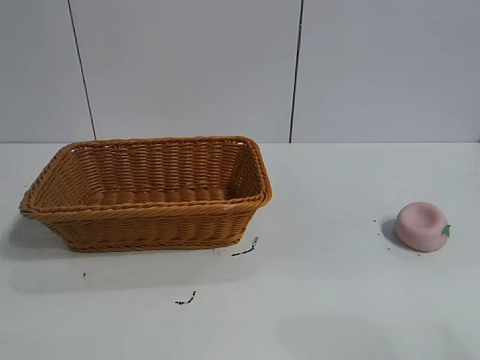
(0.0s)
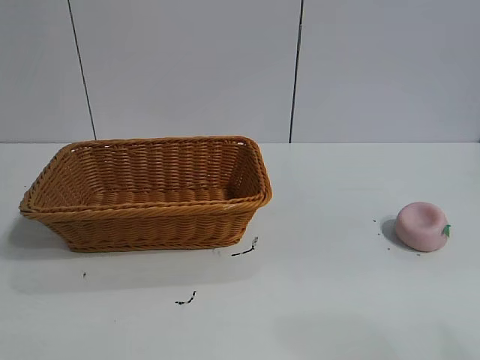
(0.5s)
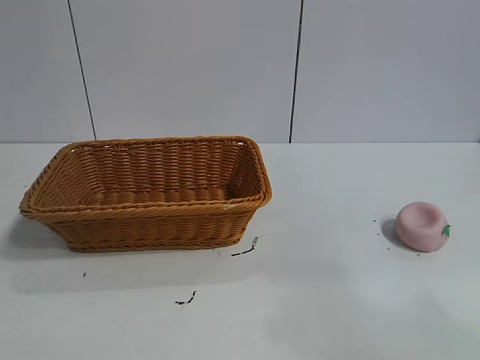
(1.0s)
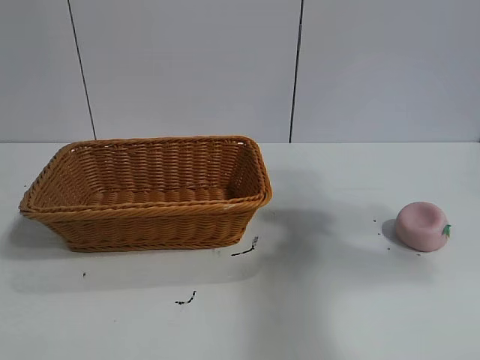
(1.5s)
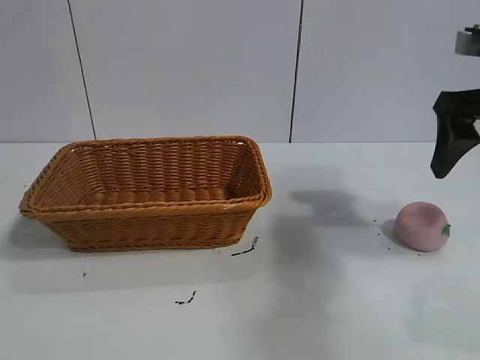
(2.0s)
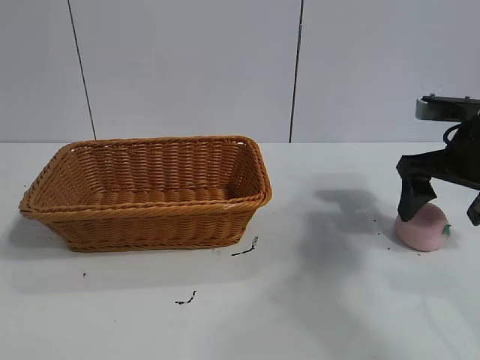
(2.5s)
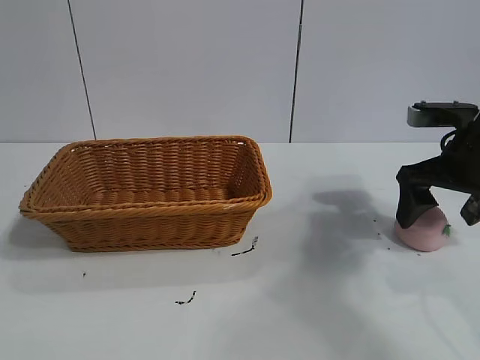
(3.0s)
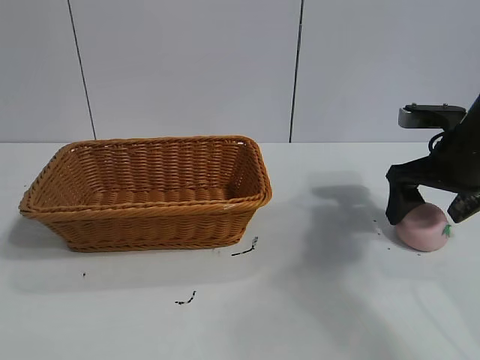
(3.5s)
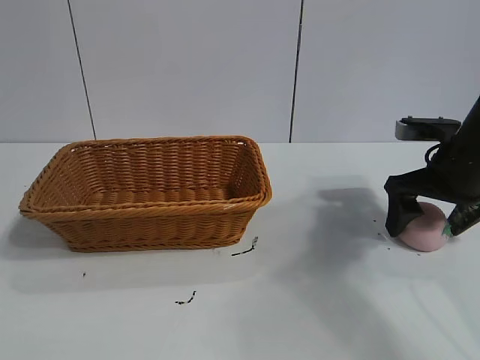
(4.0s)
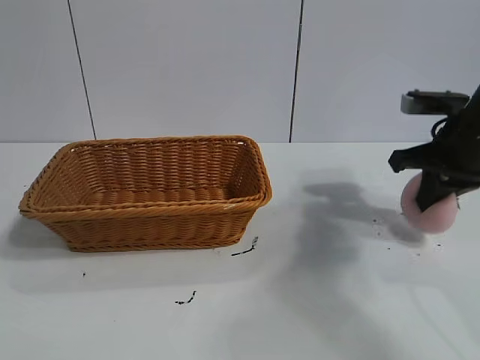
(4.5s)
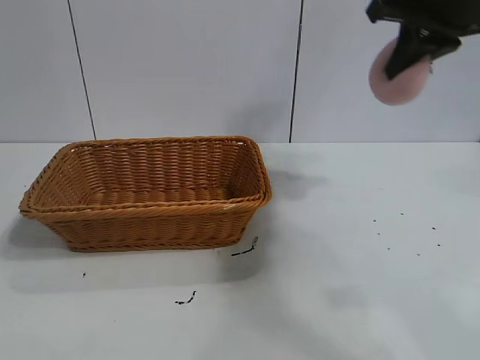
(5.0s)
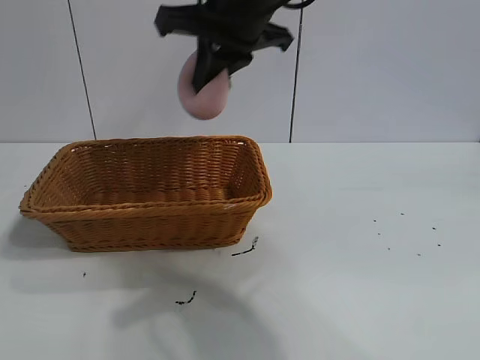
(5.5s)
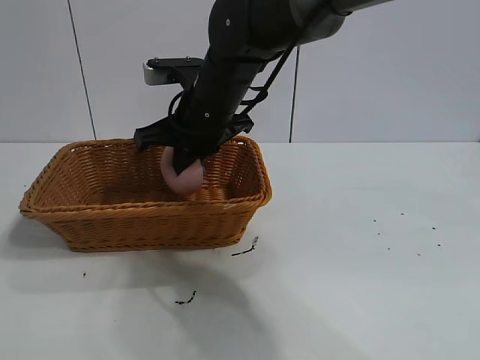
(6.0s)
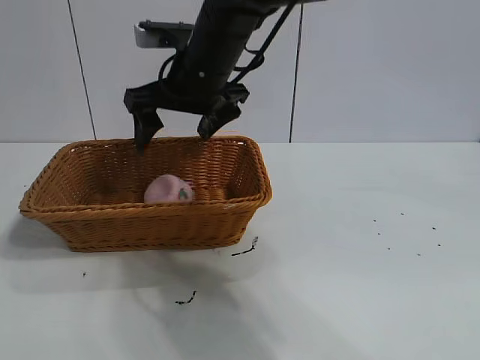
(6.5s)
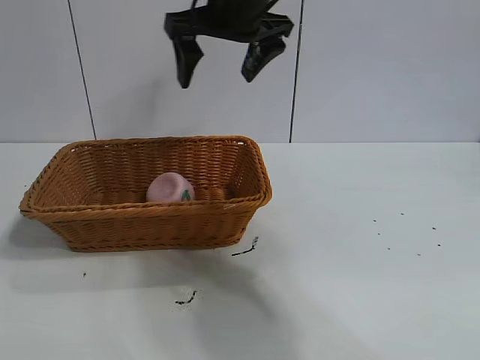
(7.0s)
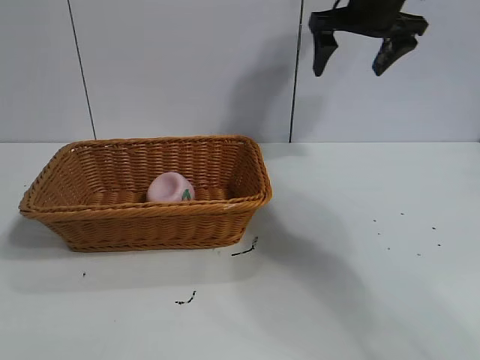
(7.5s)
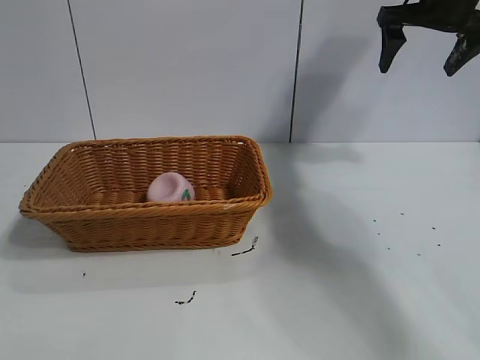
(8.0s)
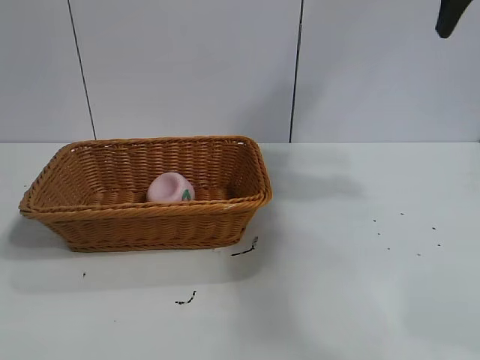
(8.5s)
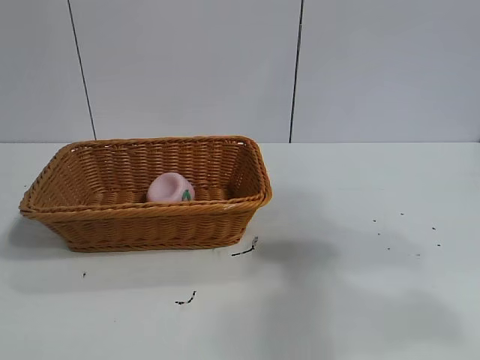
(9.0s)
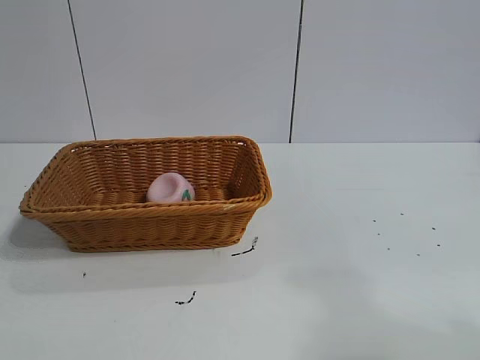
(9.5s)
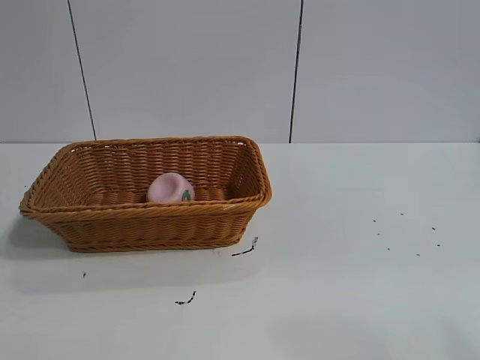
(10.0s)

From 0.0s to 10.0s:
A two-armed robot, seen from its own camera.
Task of the whole recording: pick up the peach and put it into the basket.
Step, from 1.0s to 4.0s: Grasp the peach with right gripper.
Step, from 4.5s to 6.5s: Place the peach in the basket with right gripper.

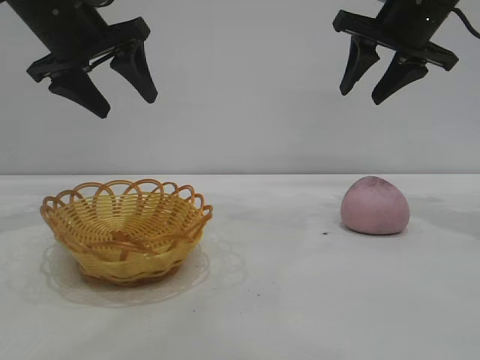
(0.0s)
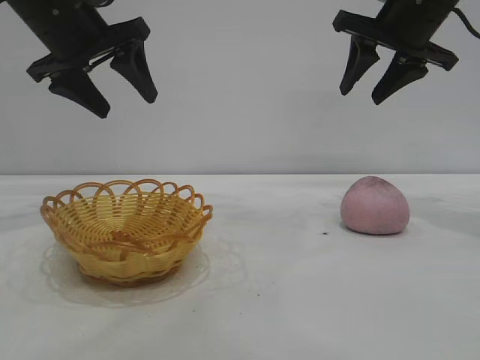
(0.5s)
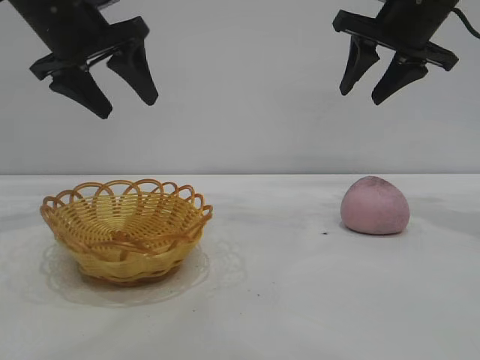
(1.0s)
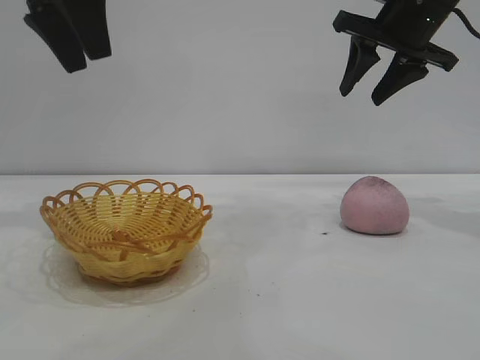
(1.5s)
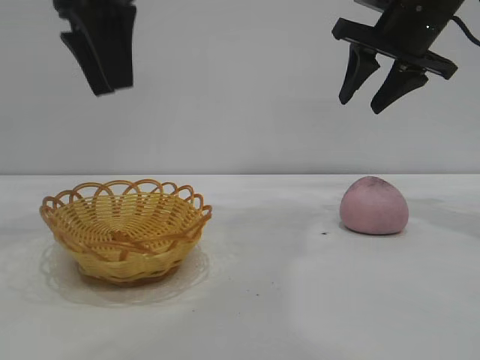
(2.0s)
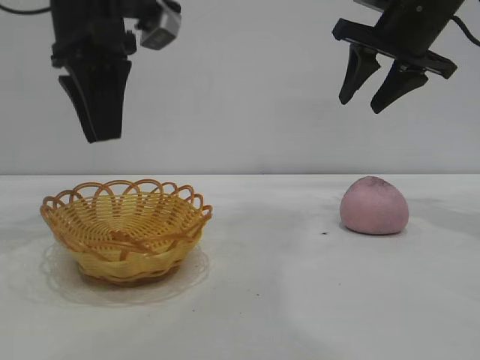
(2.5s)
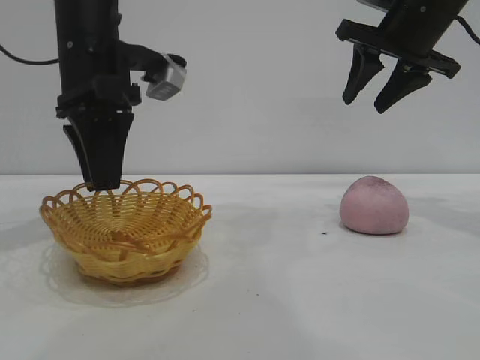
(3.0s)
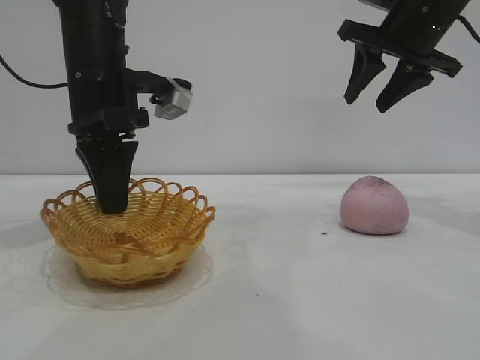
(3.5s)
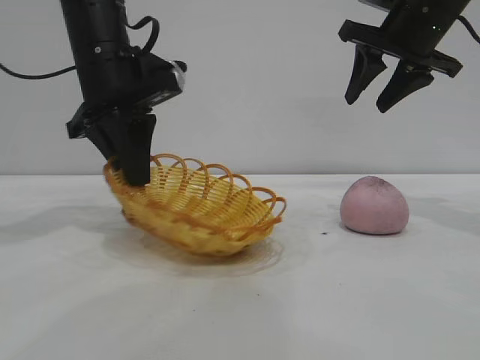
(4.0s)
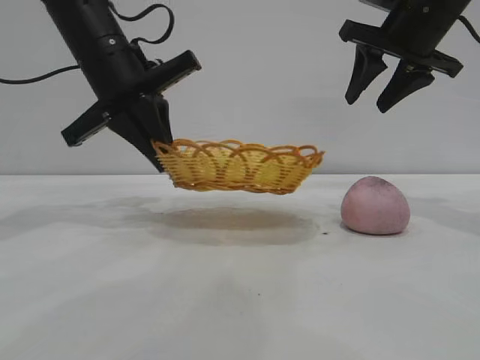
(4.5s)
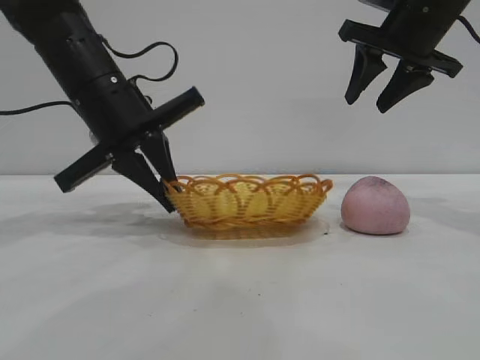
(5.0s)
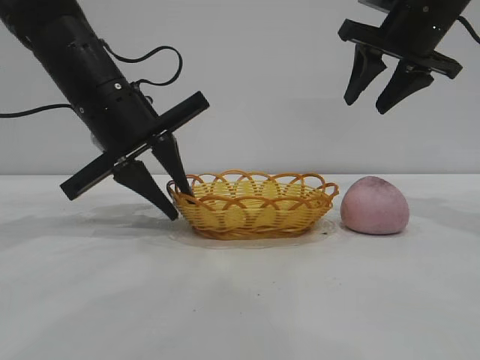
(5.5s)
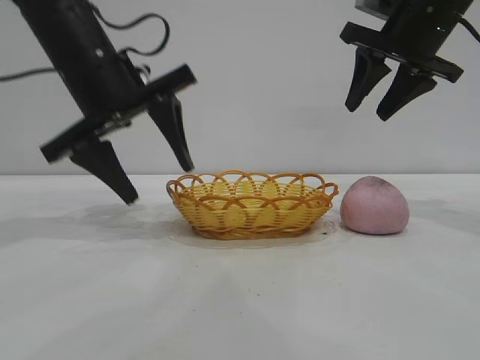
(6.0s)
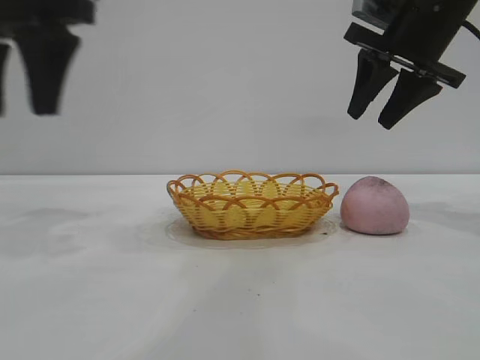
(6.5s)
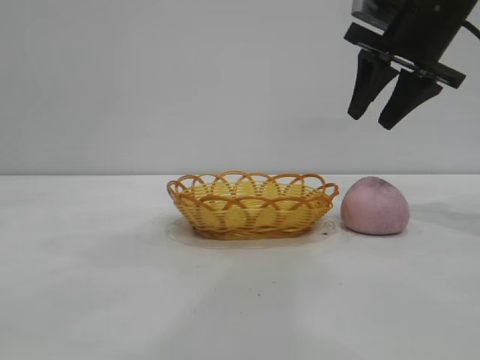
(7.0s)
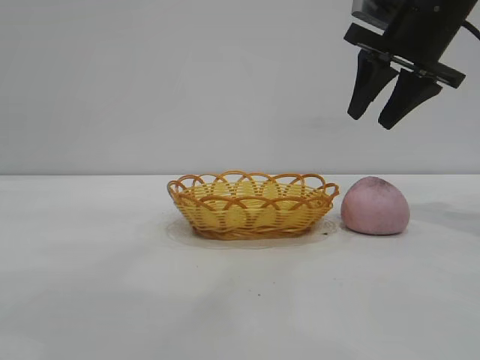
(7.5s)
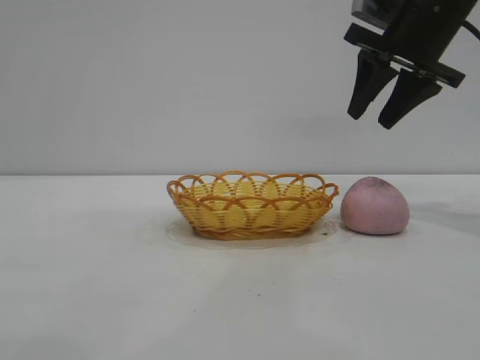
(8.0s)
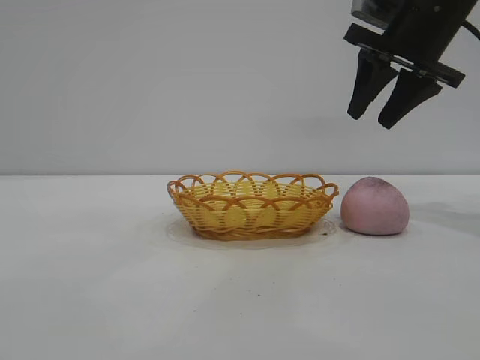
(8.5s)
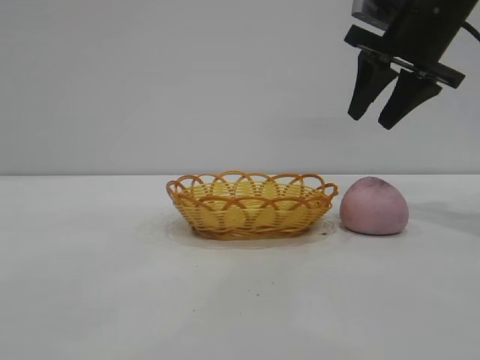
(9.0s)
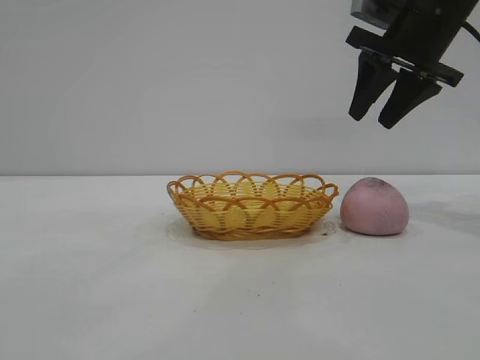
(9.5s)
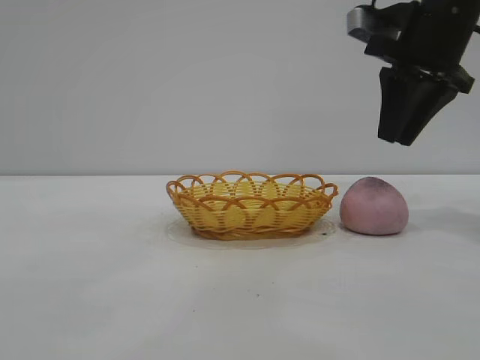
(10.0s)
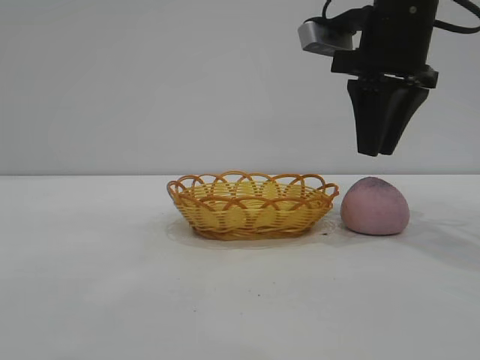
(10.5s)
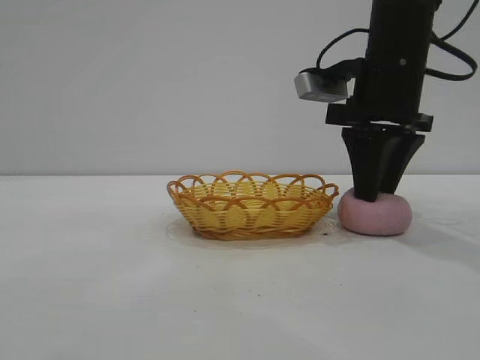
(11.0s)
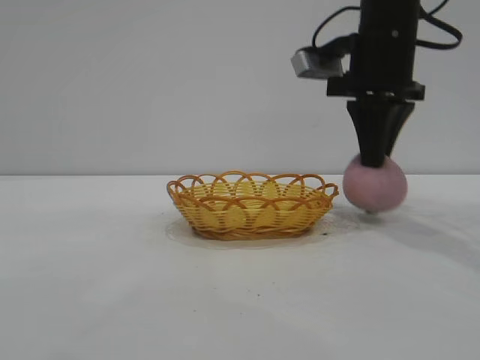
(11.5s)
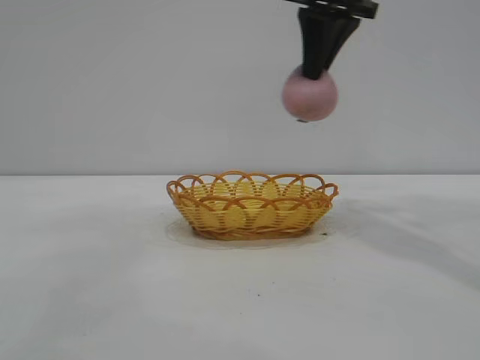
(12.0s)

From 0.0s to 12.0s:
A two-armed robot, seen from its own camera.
Task of the whole recording: pick up the peach and put it into the basket.
Step, from 0.0s to 6.0s: Move the basket to the center of view.
Step, from 6.5s to 11.5s: Pick up the peach.

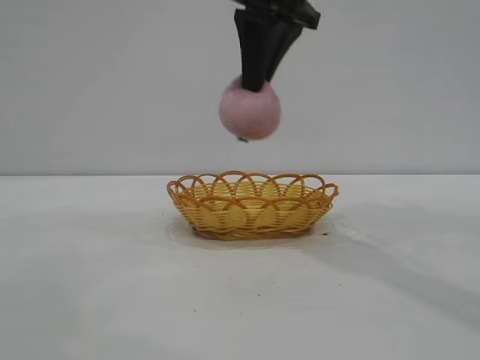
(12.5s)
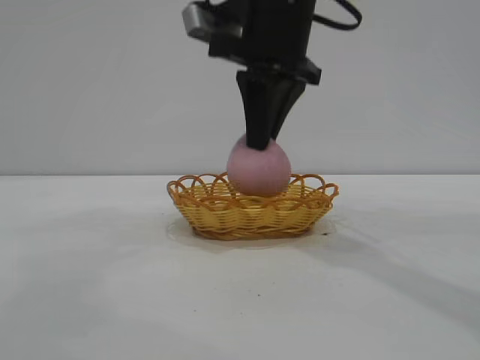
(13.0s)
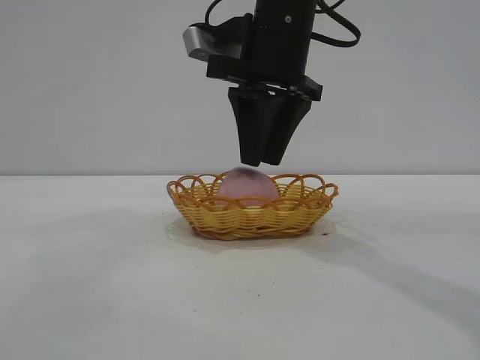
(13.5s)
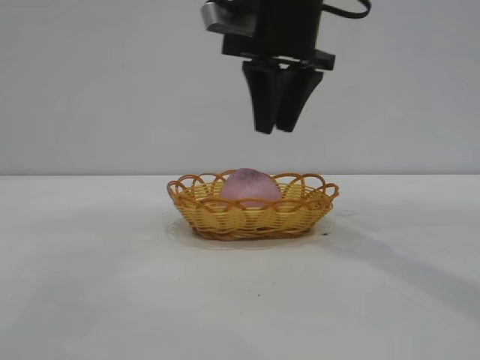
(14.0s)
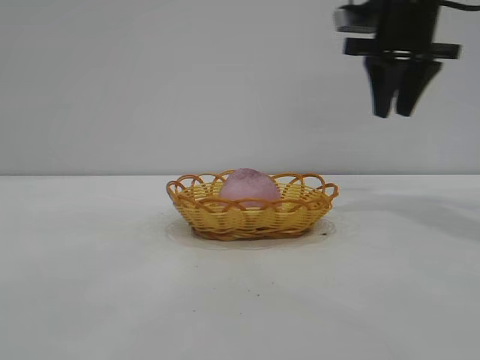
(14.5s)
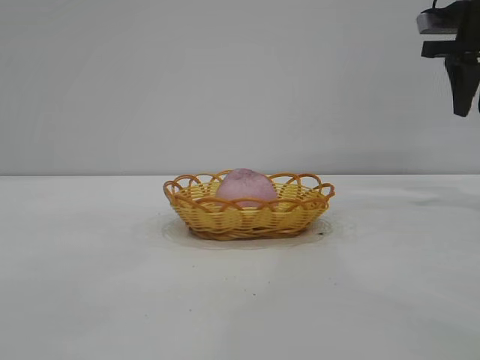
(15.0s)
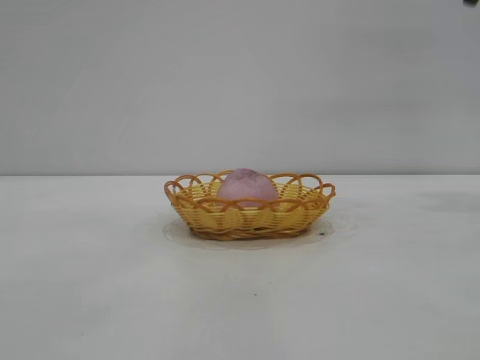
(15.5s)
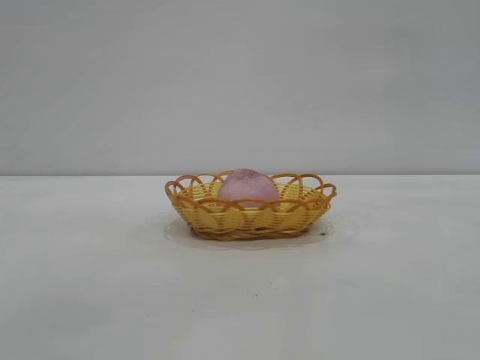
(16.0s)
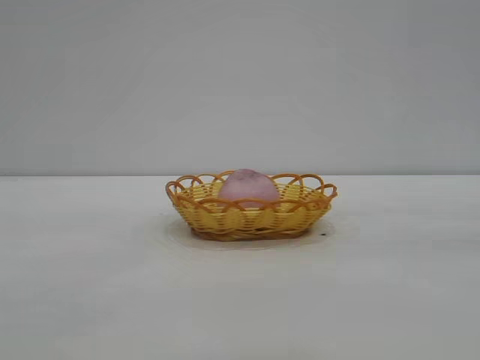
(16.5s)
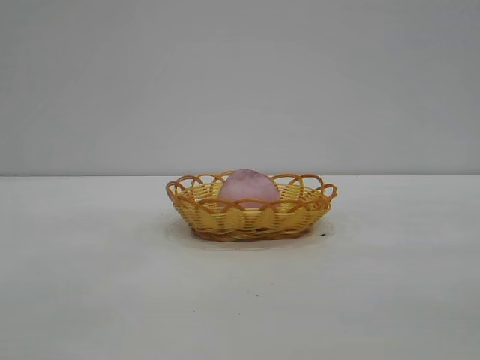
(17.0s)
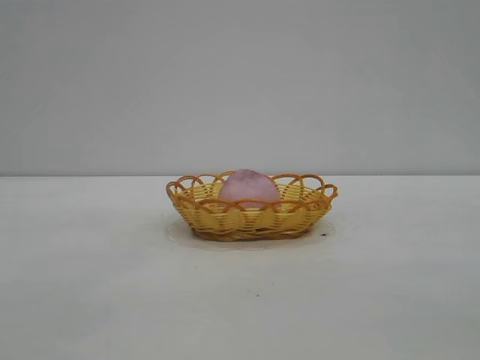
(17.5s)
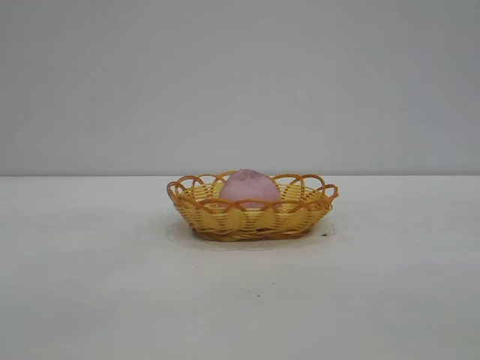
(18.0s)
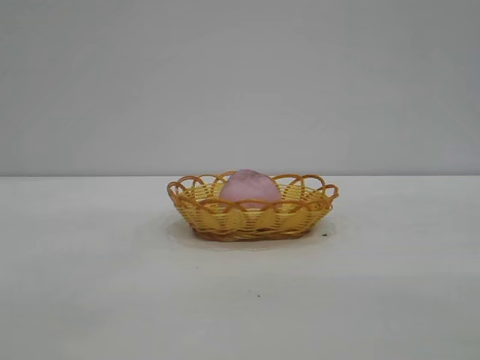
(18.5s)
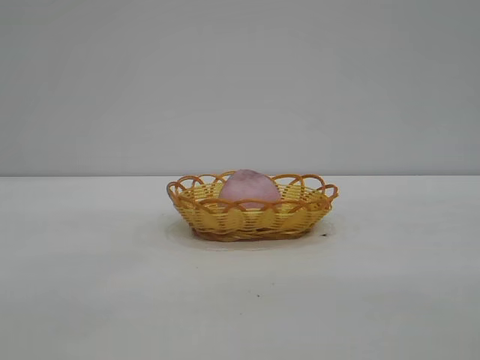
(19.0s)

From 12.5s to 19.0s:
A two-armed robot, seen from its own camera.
Task of the whole recording: pick up the peach and put it into the basket.
Step, from 12.5s to 14.0s: place the peach into the basket.
